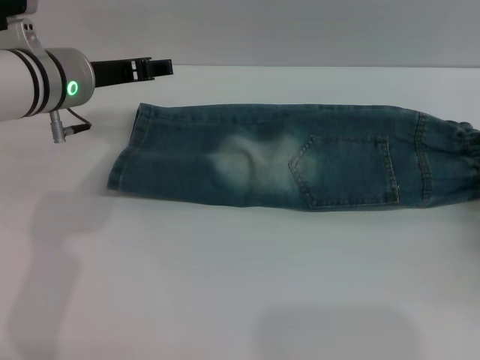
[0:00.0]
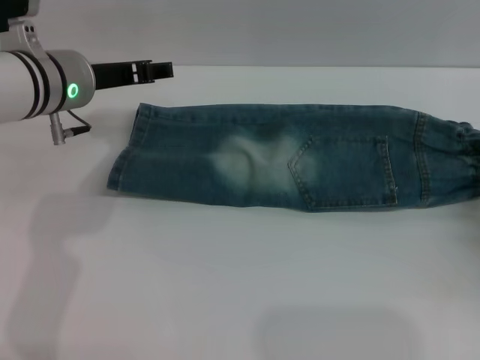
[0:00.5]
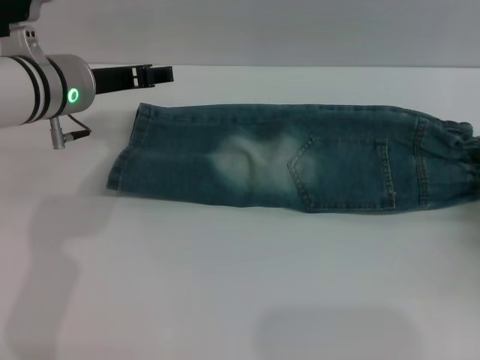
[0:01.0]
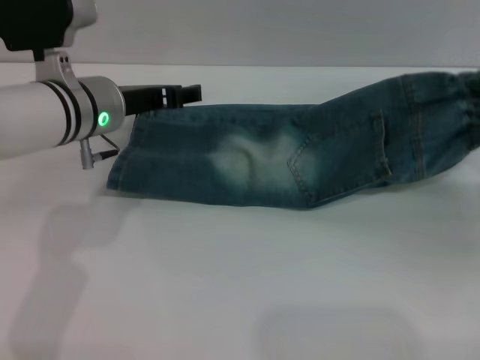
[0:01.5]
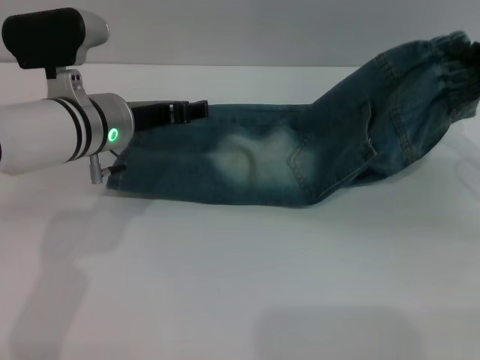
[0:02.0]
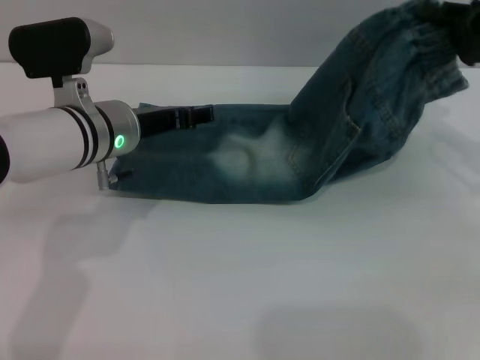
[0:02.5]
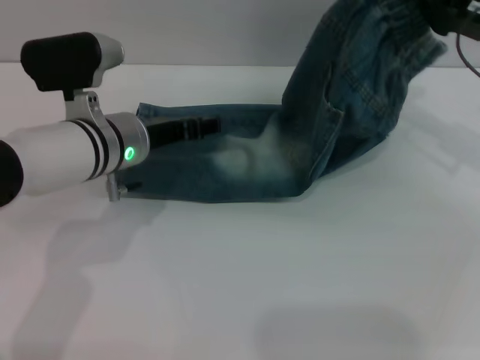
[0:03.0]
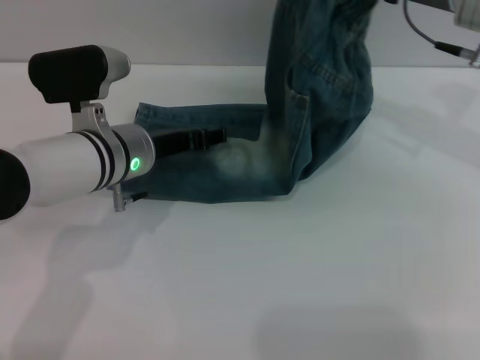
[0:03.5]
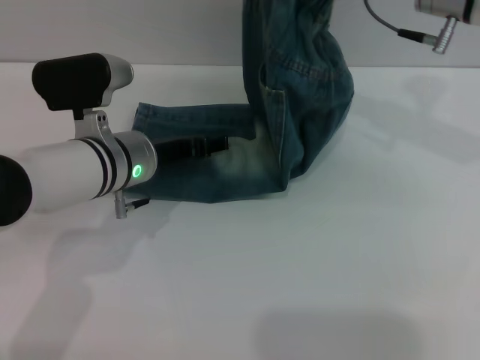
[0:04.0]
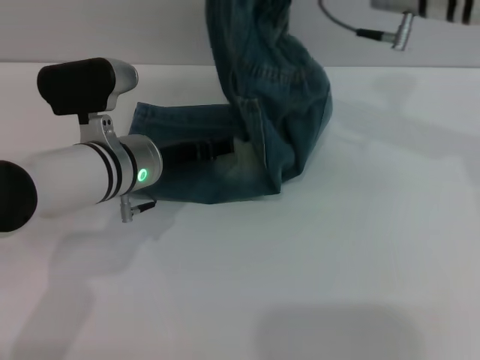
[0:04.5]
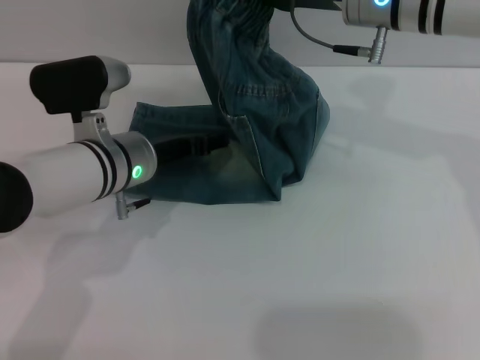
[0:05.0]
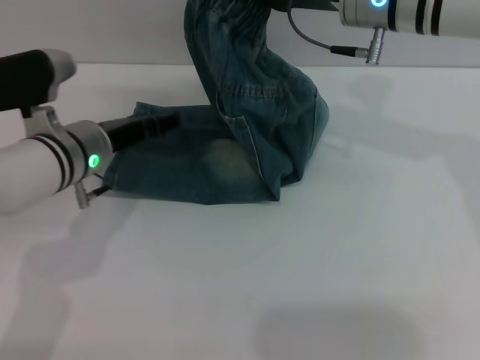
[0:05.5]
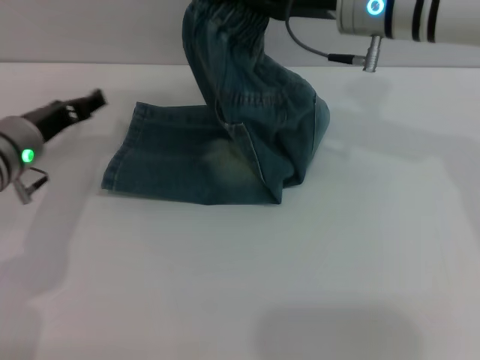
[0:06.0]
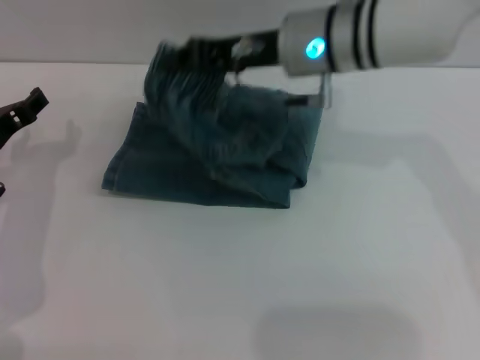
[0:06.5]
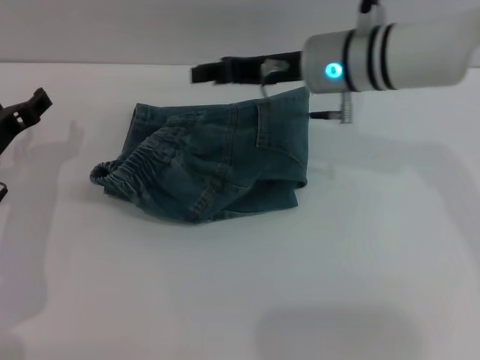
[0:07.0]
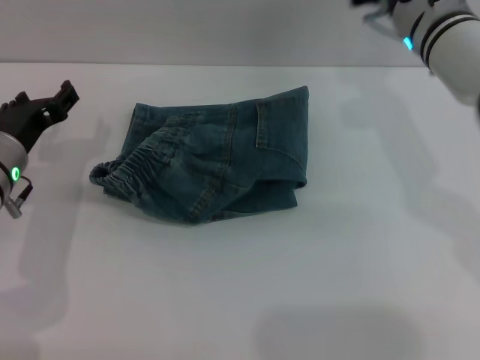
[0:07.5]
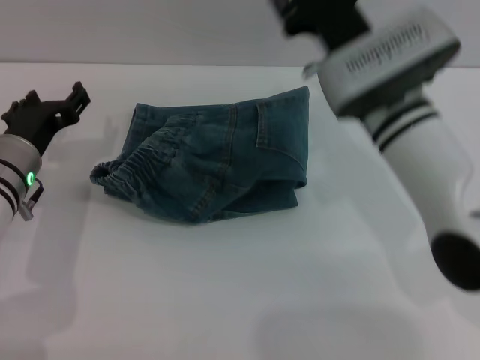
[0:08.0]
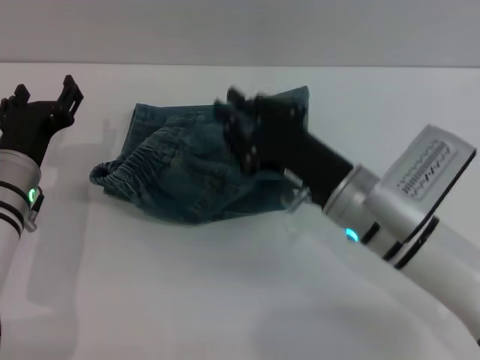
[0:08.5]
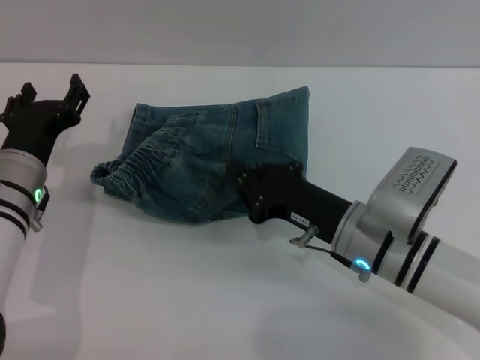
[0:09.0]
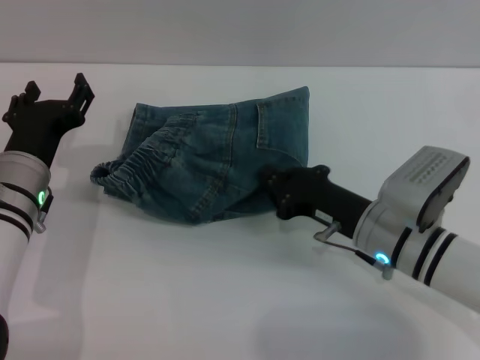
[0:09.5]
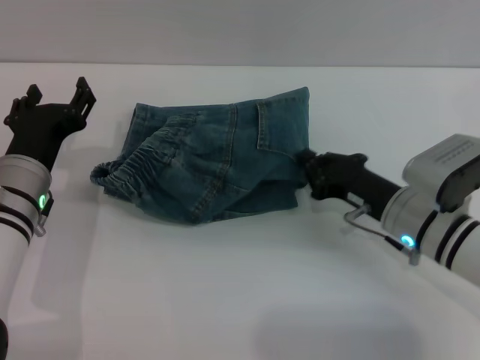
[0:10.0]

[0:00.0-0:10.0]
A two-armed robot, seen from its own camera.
Step, 0:00.0 to 0:06.5: Fold the pants from right to left with the right gripper.
0:00.0 to 0:02.0: The left gripper shifts by some 5 cm; the right gripper shifts roughly 10 cm upward and forward, and closes.
0:02.0 to 0:04.0: The right gripper shifts about 20 cm to the left, upward and forward.
0:04.0 to 0:06.0: The right gripper moves to the left, approximately 5 cm. Meanwhile the left gripper travels to the left by about 10 cm.
0:06.0 to 0:08.0: The right gripper moves left and right over about 10 cm, changing direction 2 times, and opens.
0:08.0 to 0:10.0: The right gripper is displaced downward, to the right and backward by roughly 15 cm, and closes its fingers.

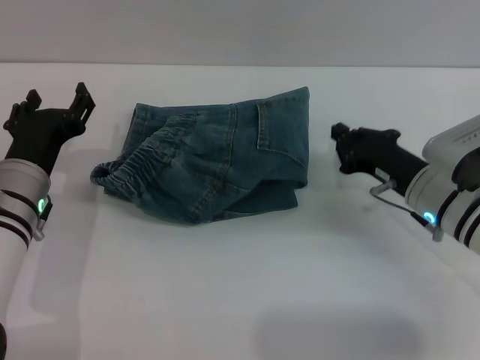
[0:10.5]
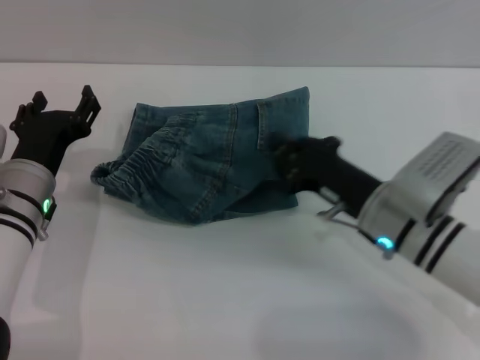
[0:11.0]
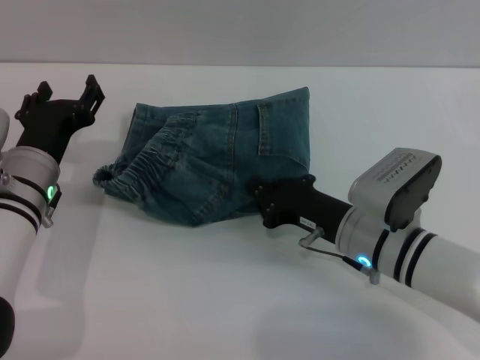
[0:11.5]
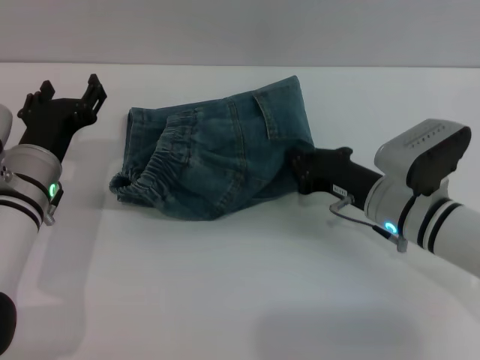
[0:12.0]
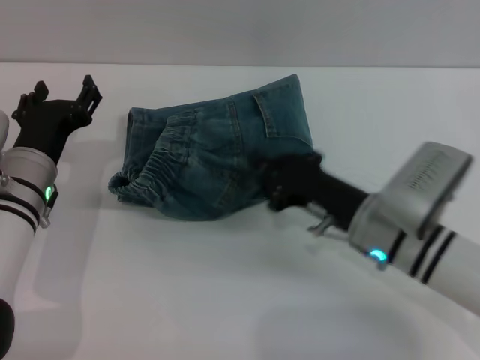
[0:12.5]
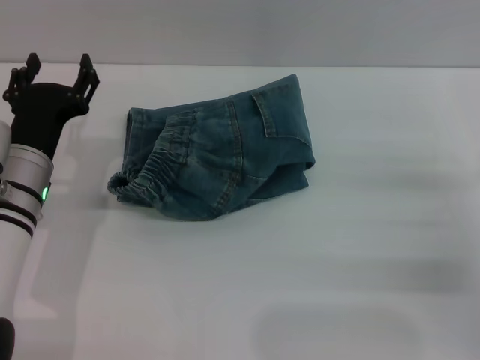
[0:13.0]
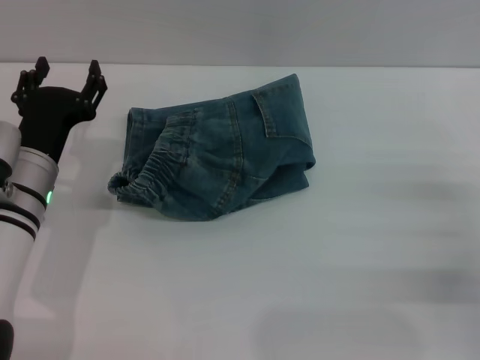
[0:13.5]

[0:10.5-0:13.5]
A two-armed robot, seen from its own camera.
Step, 0:10.5 to 0:12.5: Place the folded trousers onto the center area with the right grippers.
0:12.0 to 0:13.5: The right gripper moves to the right and backward, approximately 15 cm, and opens its fingers.
